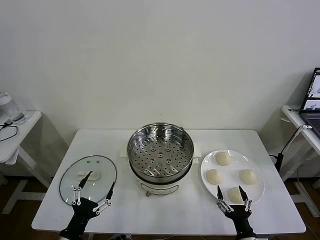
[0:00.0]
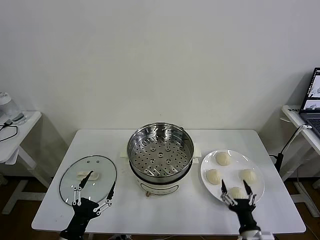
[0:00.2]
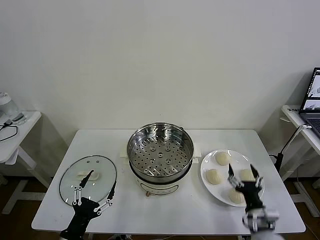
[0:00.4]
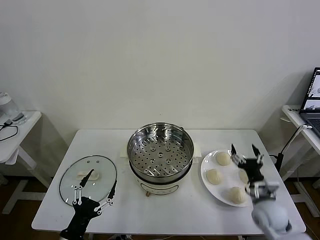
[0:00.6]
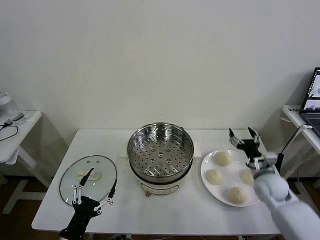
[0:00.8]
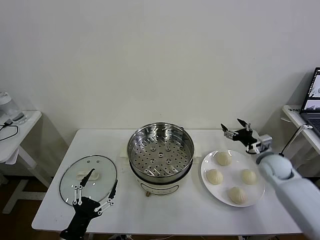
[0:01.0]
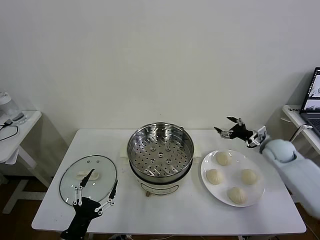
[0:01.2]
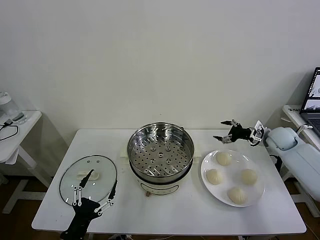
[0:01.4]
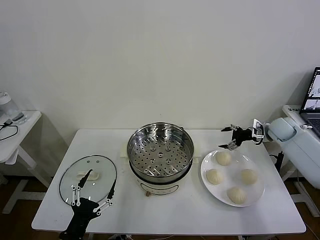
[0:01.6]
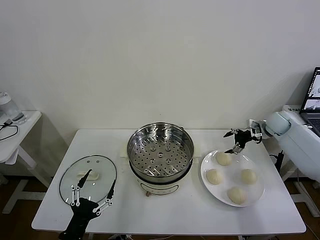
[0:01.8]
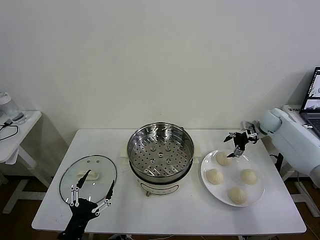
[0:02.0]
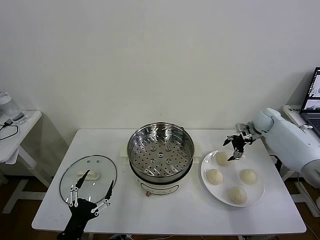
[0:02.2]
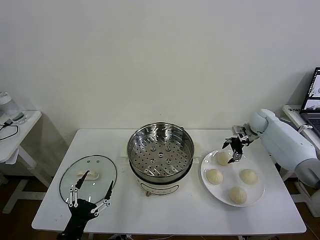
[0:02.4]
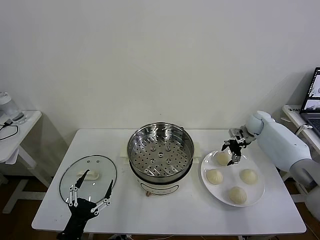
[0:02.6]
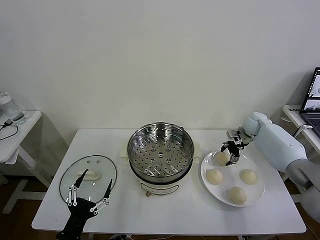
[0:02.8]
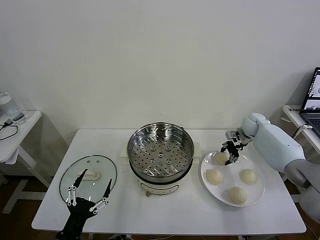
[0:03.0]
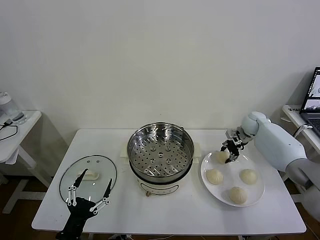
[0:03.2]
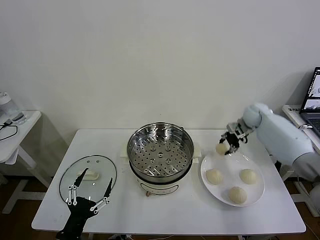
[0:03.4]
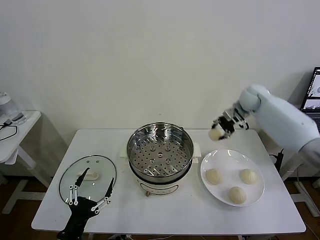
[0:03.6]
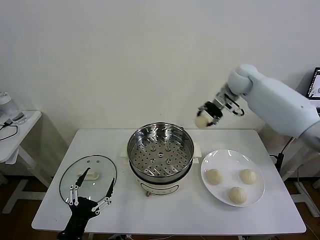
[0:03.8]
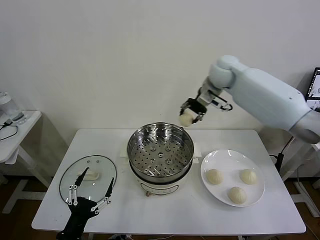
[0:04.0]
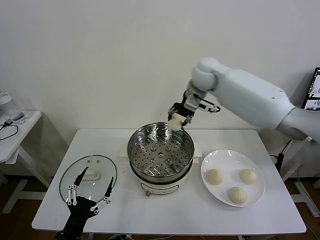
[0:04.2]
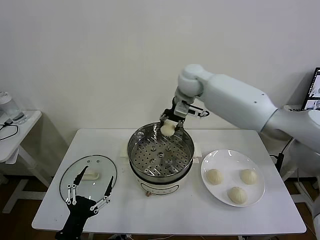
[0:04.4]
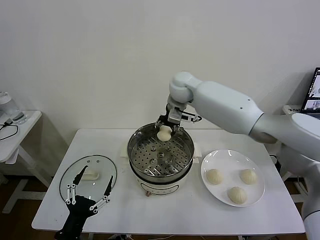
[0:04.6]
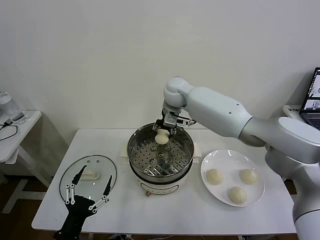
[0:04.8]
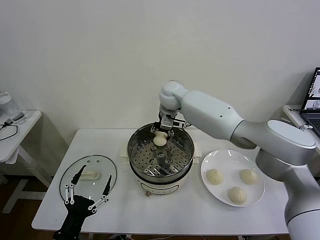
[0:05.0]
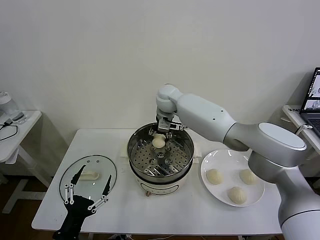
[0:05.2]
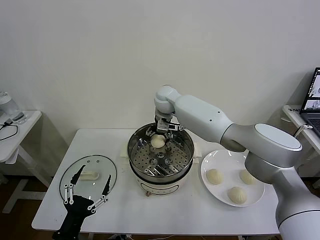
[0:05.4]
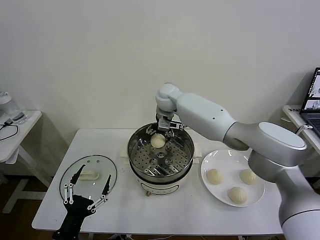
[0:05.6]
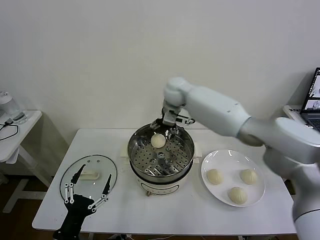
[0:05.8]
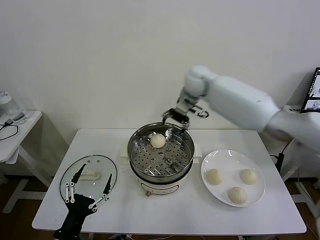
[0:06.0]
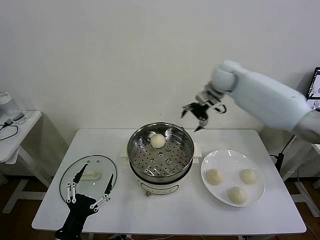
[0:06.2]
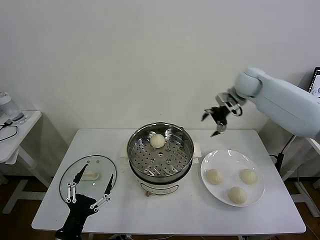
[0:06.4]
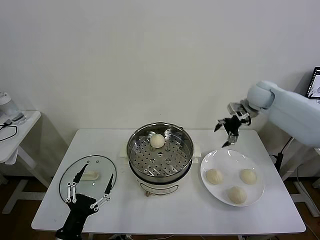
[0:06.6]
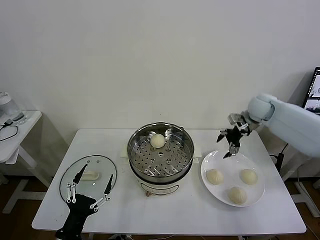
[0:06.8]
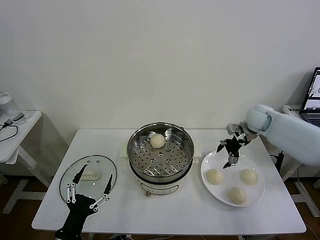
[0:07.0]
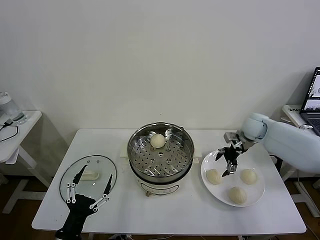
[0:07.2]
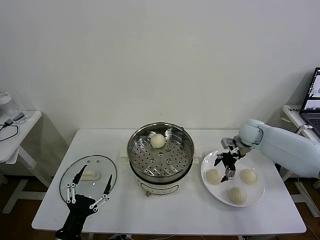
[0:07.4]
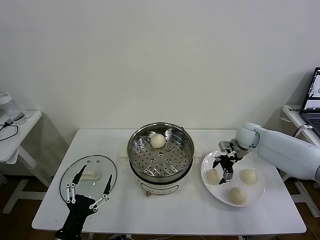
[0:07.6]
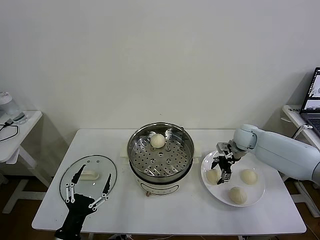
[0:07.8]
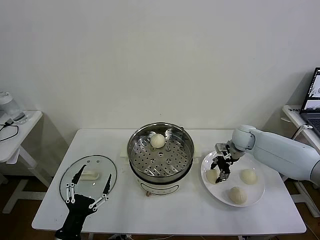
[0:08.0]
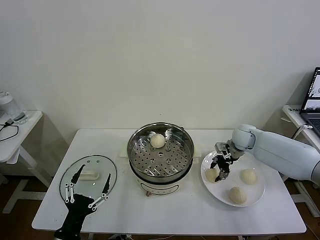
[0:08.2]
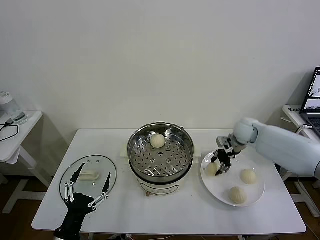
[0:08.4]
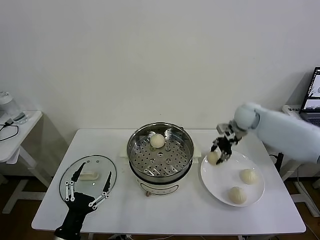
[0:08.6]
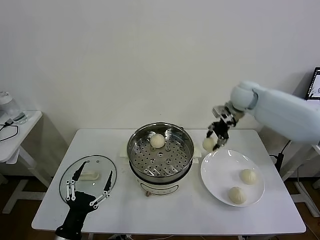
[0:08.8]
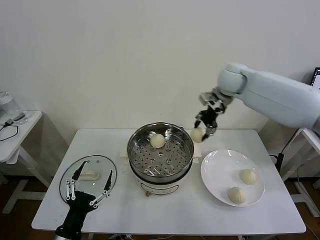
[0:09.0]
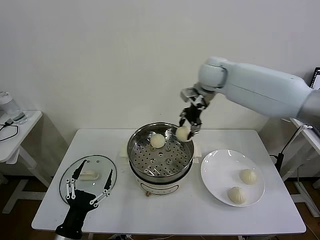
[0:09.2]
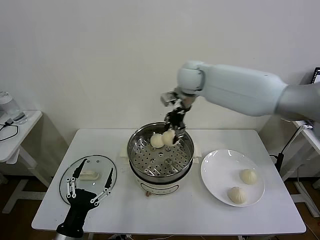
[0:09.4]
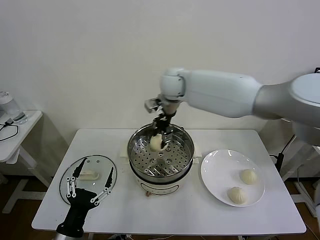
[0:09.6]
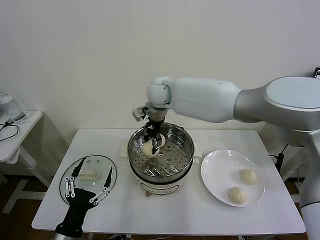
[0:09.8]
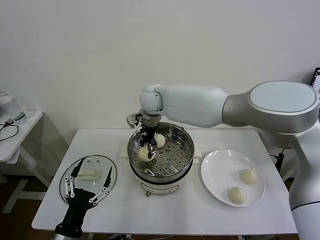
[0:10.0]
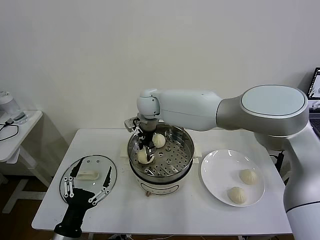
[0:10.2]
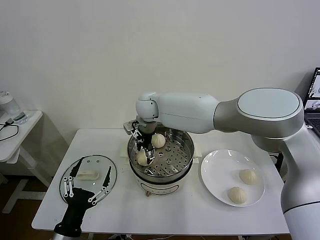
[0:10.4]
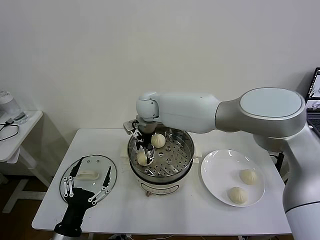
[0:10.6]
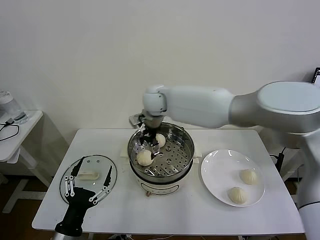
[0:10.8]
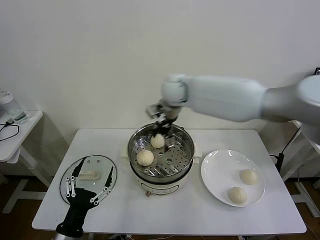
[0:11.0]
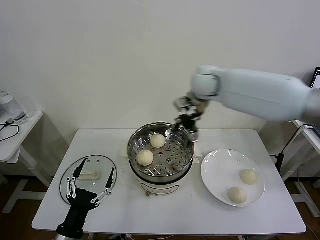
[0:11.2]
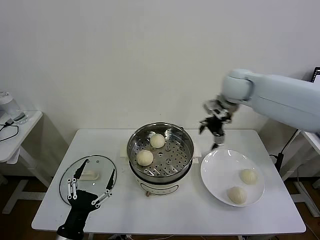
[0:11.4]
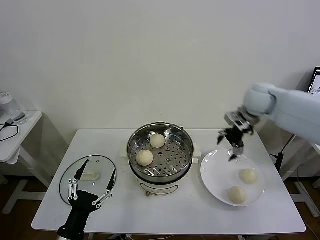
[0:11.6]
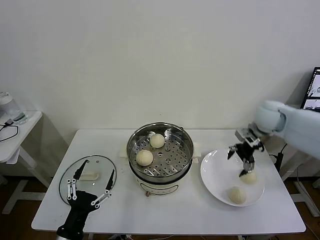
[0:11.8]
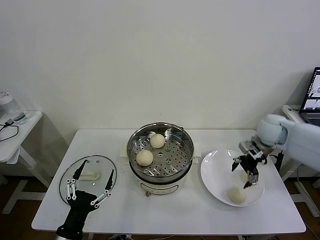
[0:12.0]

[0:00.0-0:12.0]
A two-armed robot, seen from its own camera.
Task of the whole recording: take steamed baozi put them in steamer then cover it.
Step, 0:00.0 to 0:03.0: Grasp the baozi in the plate with right gripper.
Step, 0:03.2 to 0:05.4: Place the baozi on the steamer with right gripper.
Step, 0:05.6 to 0:08.0: Grasp the baozi in the plate with right gripper.
Step, 0:08.2 to 0:10.4: Place the baozi on the steamer with right gripper.
0:01.6 to 0:03.0: The right gripper heads to the left, covering approximately 5 cm, and closes.
0:03.0 to 0:04.4: The right gripper moves to the left and upward, about 35 cm.
0:04.4 to 0:06.0: The right gripper moves to the right, about 15 cm, and opens up.
0:06.0 to 0:07.6: The right gripper is displaced downward and to the right by approximately 25 cm.
0:07.6 to 0:09.0: The right gripper heads upward and to the left, covering approximately 30 cm, and closes its fingers.
0:09.0 to 0:10.4: The right gripper goes some 25 cm to the left and downward, and opens its fingers.
0:10.4 to 0:12.0: The right gripper travels to the right by approximately 40 cm.

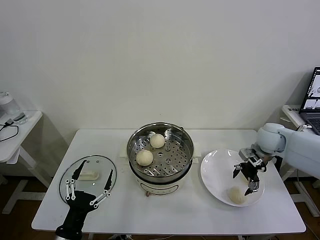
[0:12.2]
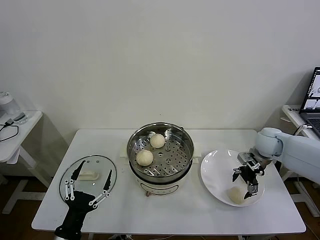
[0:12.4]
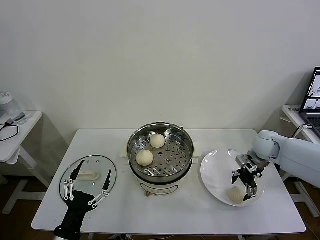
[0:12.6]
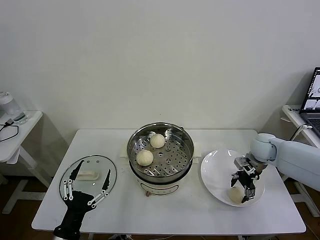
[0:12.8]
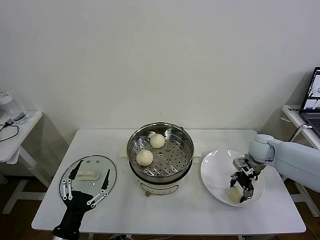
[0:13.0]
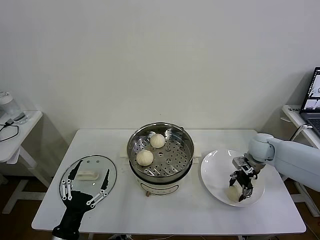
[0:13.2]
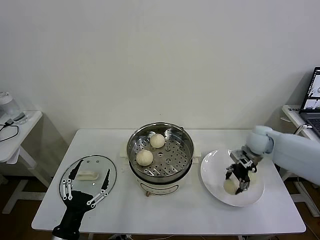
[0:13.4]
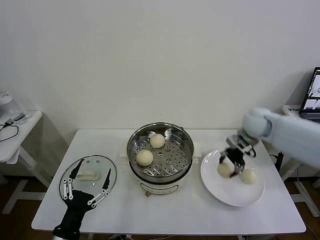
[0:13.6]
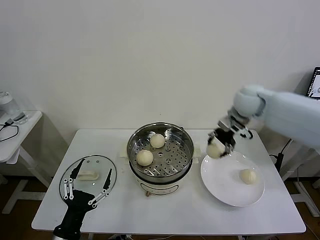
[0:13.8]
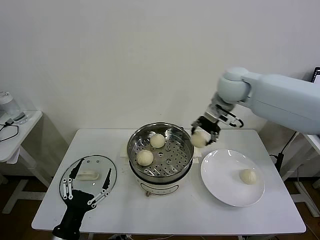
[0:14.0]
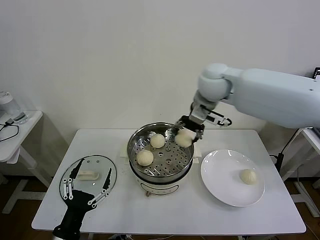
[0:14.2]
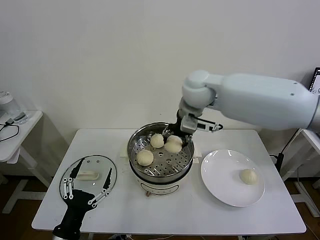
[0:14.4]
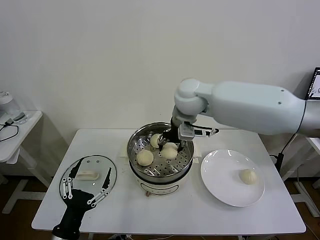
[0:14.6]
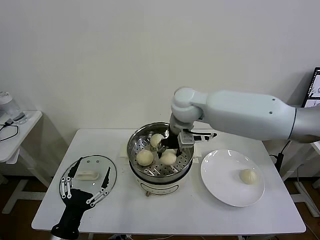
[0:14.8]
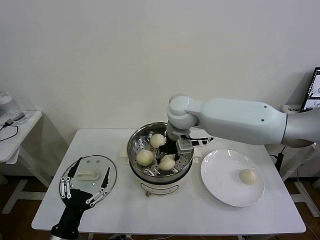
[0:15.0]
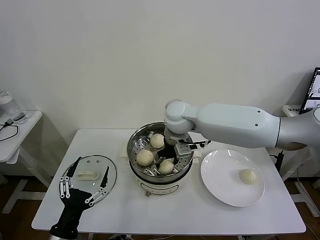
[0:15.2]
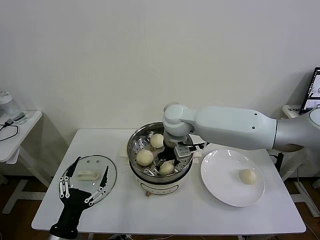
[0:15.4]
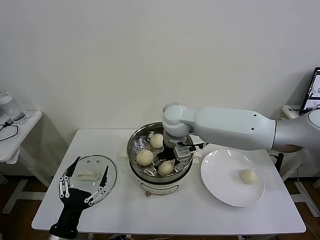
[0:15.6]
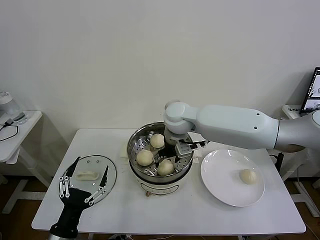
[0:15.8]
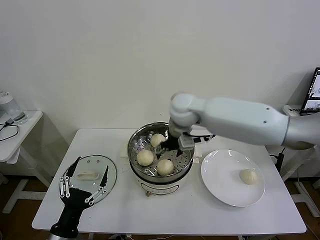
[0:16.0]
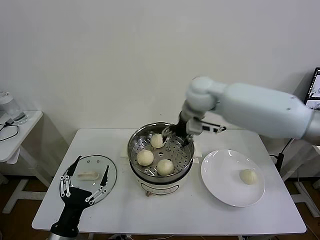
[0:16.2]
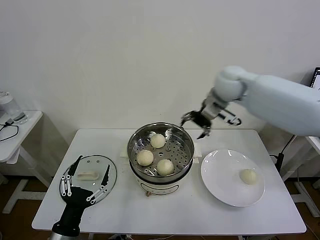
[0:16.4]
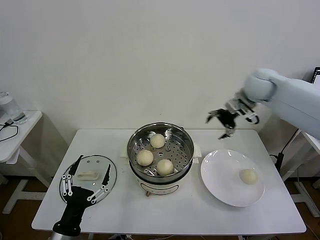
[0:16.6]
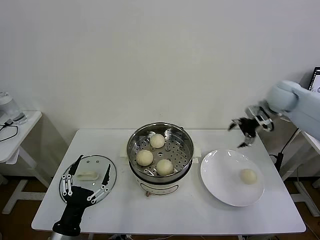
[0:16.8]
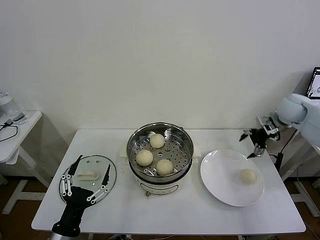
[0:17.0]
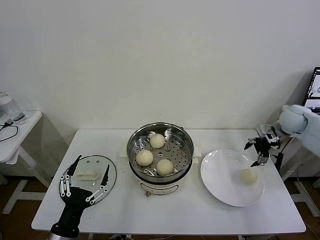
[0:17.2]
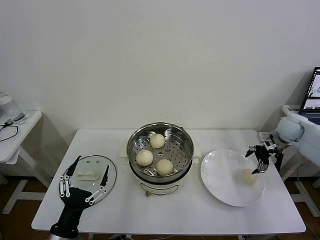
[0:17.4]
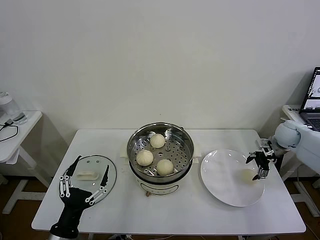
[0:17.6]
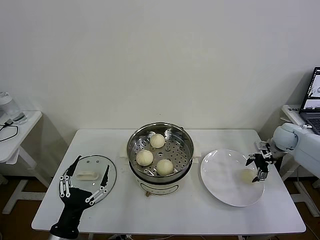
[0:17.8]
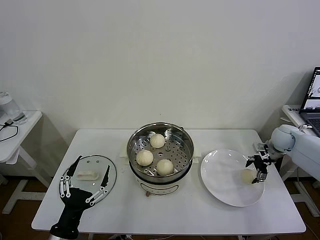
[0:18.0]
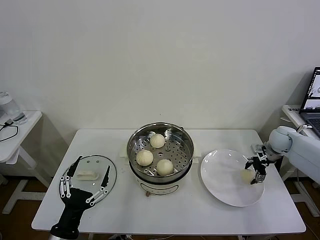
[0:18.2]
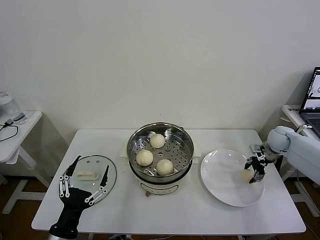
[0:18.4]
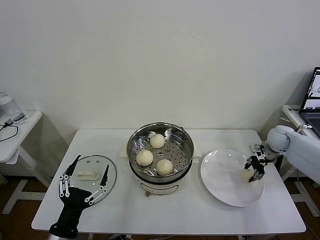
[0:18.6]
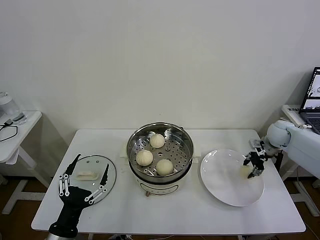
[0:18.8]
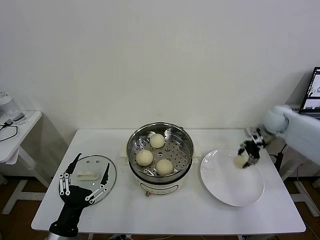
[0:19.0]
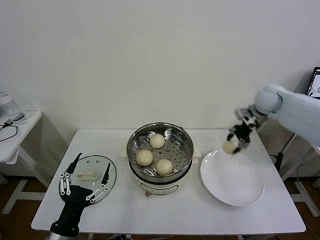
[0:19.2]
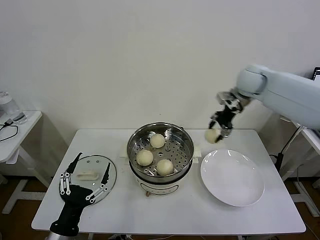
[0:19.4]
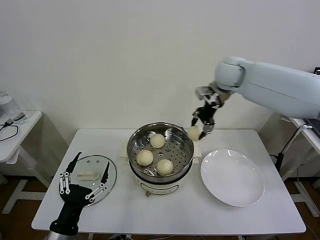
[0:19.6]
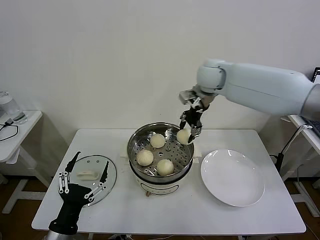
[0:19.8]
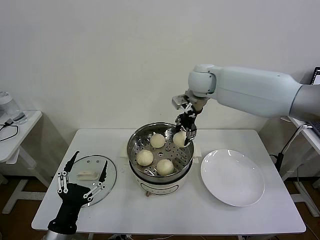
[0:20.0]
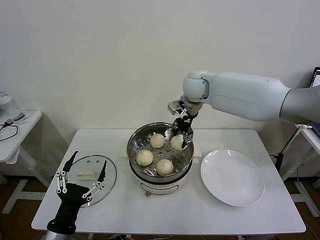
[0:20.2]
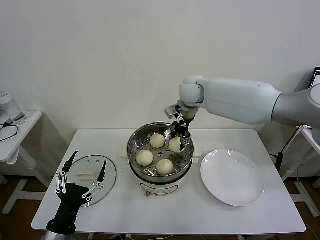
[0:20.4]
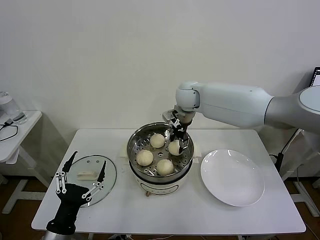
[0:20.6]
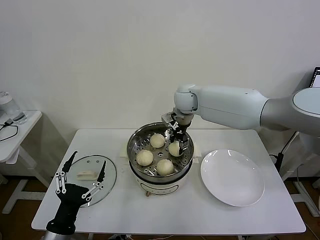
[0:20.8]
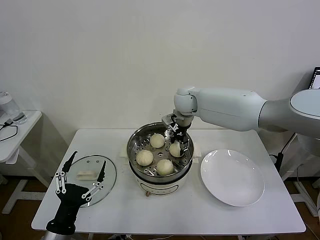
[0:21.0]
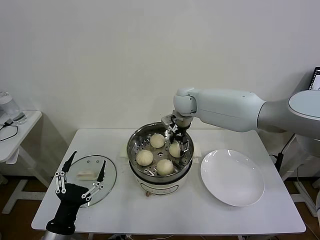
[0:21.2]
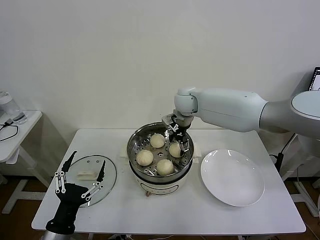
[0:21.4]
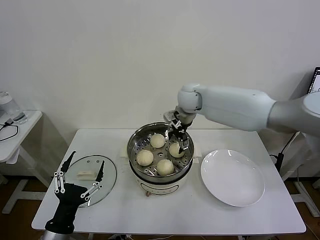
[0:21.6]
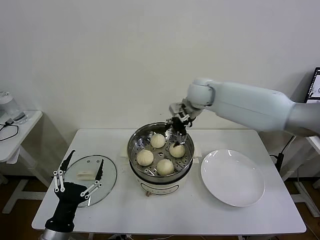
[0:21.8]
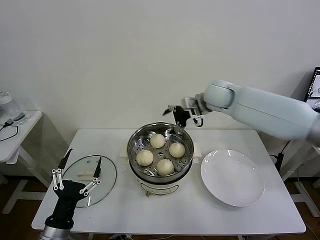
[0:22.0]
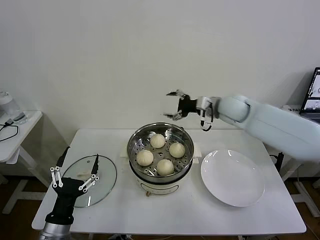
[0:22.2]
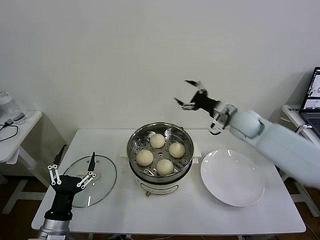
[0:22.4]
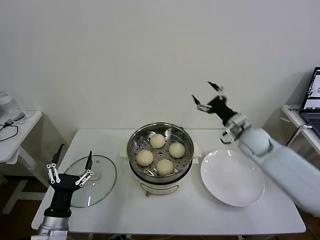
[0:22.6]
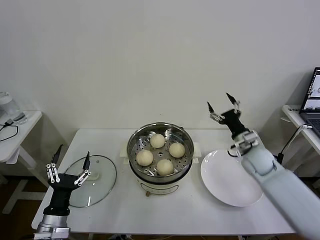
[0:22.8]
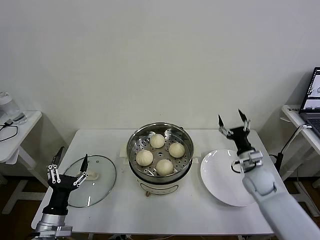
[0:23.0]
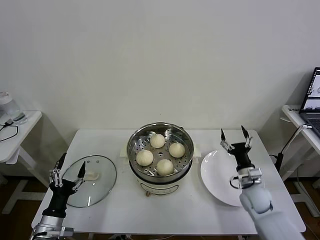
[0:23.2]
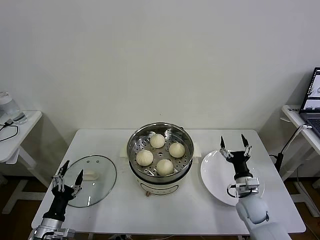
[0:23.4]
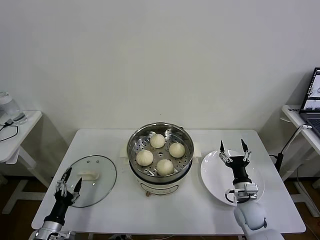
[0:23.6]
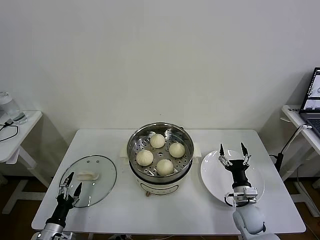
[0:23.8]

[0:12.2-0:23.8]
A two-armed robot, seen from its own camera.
Task of the whole recording: take steamed baozi put them in steamer then cover it.
Step, 0:13.4 to 0:15.6: Place the baozi on the steamer with right gripper.
Step, 0:15.8 to 0:18.6: Grasp the baozi in the plate with right gripper.
Step, 0:18.8 to 0:21.4: Place the baozi on the steamer with right gripper.
0:12.2 to 0:13.6: The right gripper moves upward and to the left, approximately 15 cm, and closes up.
0:13.6 to 0:15.0: The right gripper travels to the left by roughly 25 cm.
0:15.0 to 0:16.6: The right gripper heads to the right, covering approximately 30 cm, and opens up.
0:16.6 to 0:18.0: The right gripper moves downward and to the right, roughly 20 cm.
0:18.0 to 0:19.4: The right gripper shifts roughly 30 cm upward and to the left, and closes its fingers.
0:19.4 to 0:21.0: The right gripper is displaced to the left and downward by roughly 20 cm.
0:21.0 to 0:22.4: The right gripper travels to the right and backward by some 20 cm, and opens up.
0:22.4 to 0:23.8: The right gripper heads downward and backward, covering some 30 cm; the left gripper heads downward and to the left, covering approximately 20 cm.
